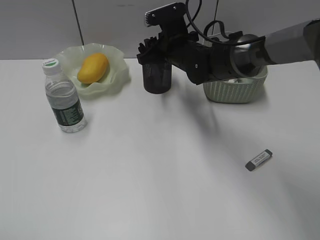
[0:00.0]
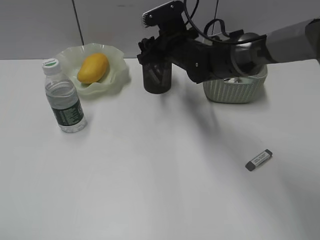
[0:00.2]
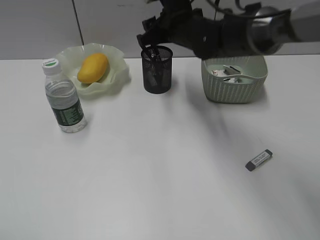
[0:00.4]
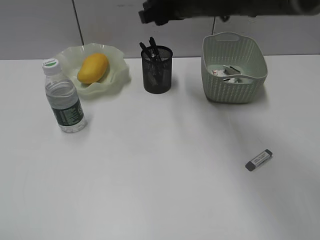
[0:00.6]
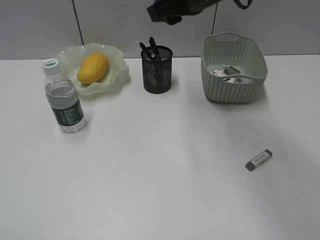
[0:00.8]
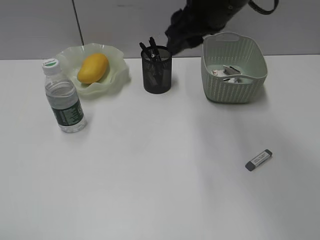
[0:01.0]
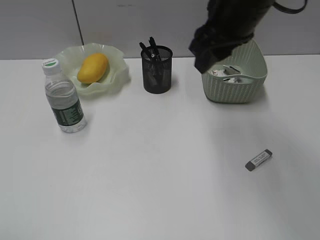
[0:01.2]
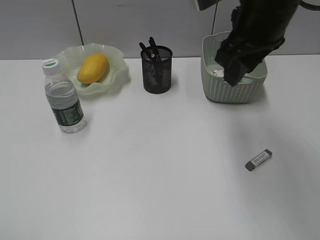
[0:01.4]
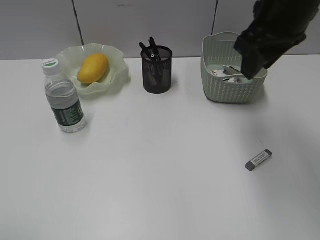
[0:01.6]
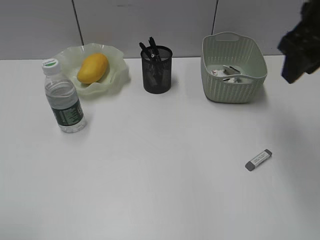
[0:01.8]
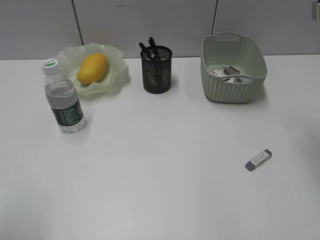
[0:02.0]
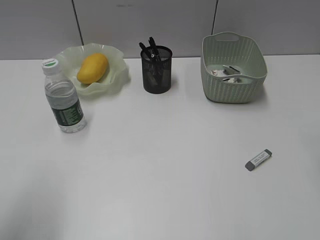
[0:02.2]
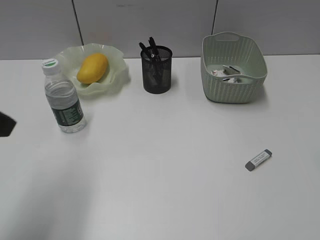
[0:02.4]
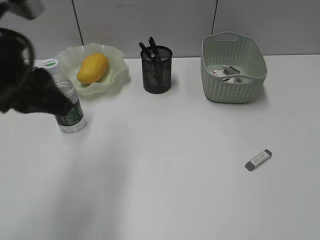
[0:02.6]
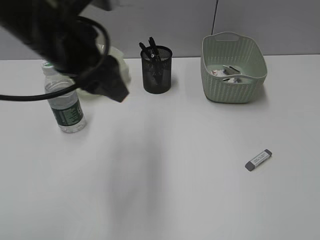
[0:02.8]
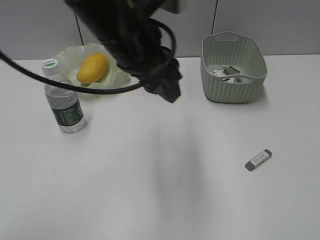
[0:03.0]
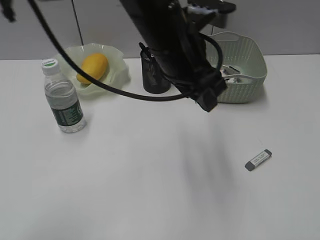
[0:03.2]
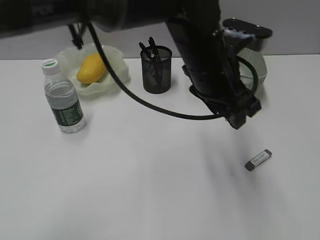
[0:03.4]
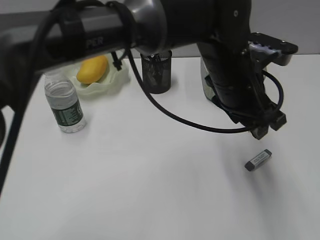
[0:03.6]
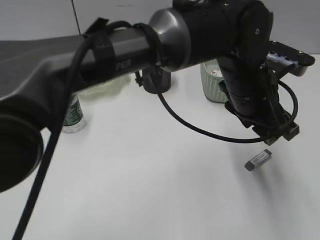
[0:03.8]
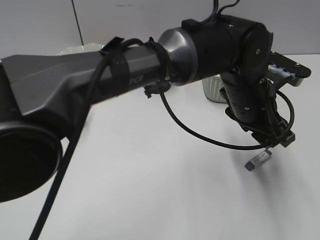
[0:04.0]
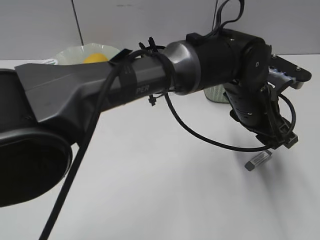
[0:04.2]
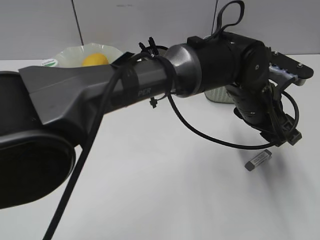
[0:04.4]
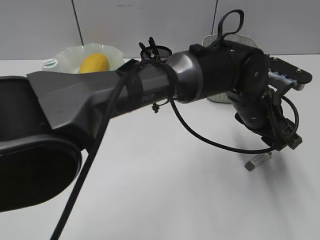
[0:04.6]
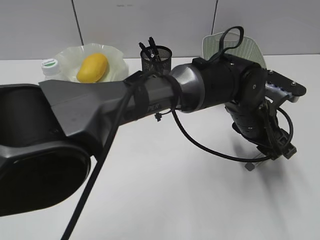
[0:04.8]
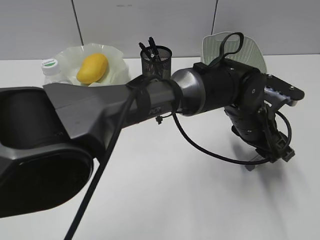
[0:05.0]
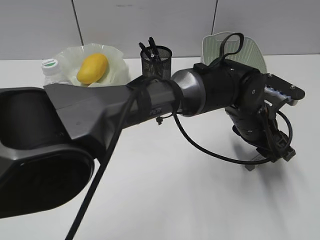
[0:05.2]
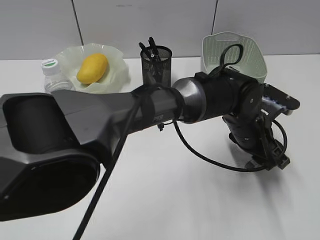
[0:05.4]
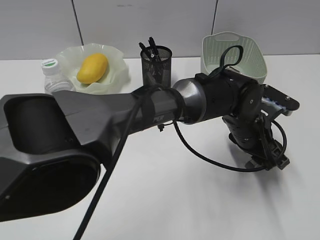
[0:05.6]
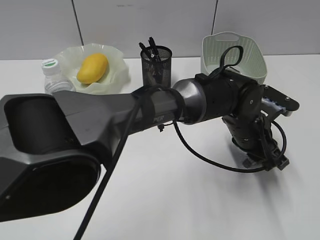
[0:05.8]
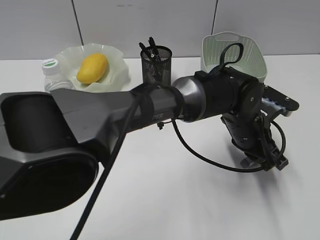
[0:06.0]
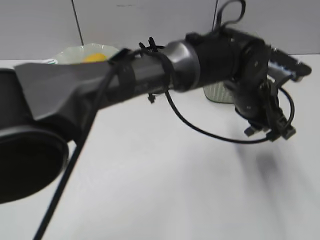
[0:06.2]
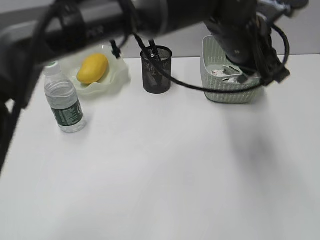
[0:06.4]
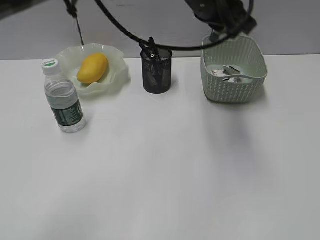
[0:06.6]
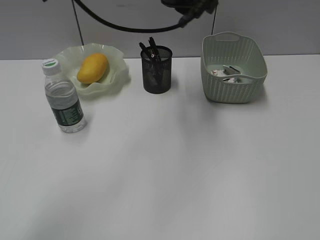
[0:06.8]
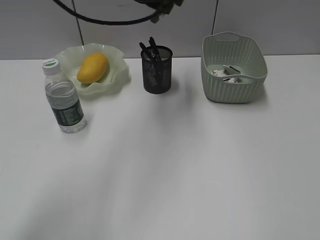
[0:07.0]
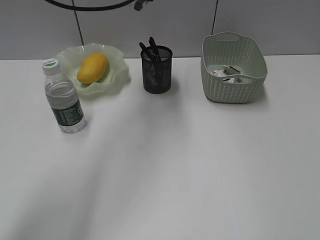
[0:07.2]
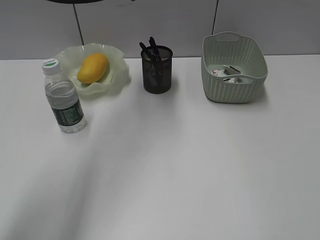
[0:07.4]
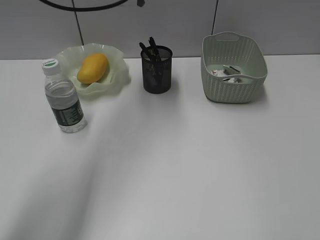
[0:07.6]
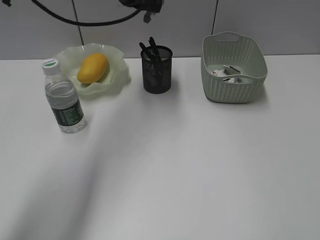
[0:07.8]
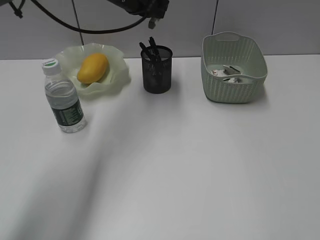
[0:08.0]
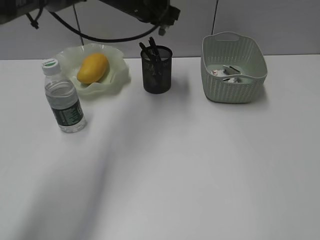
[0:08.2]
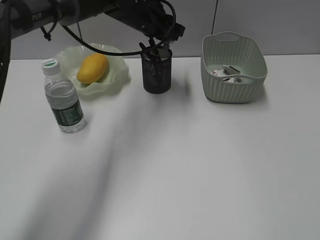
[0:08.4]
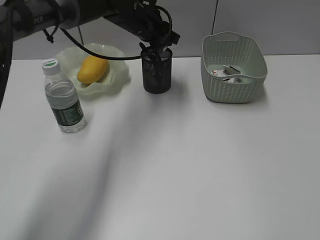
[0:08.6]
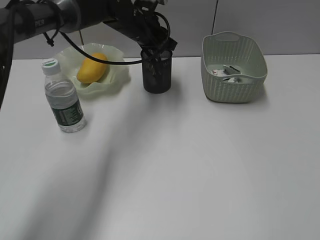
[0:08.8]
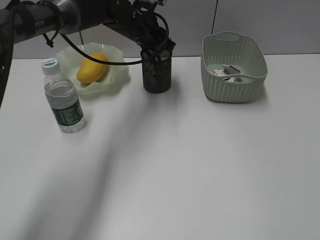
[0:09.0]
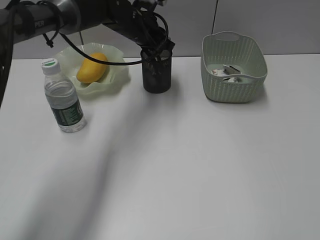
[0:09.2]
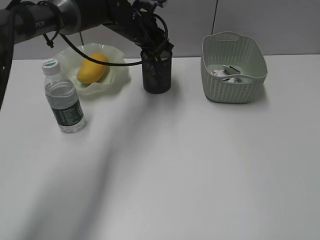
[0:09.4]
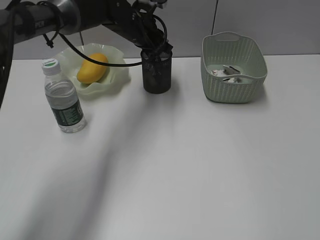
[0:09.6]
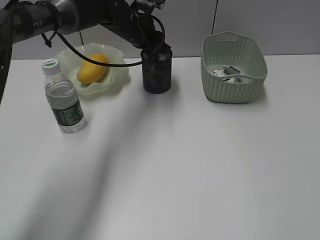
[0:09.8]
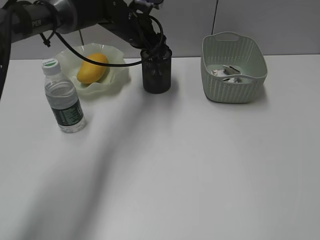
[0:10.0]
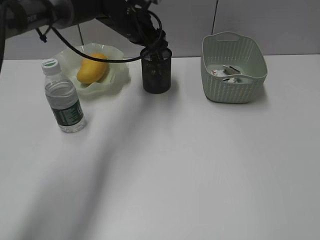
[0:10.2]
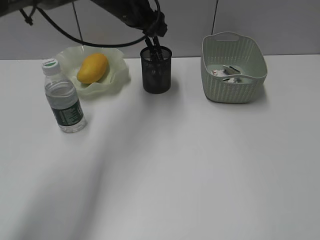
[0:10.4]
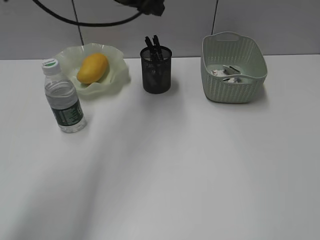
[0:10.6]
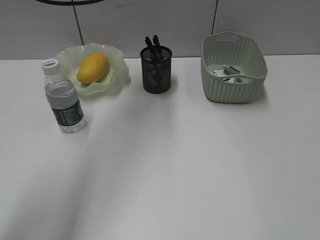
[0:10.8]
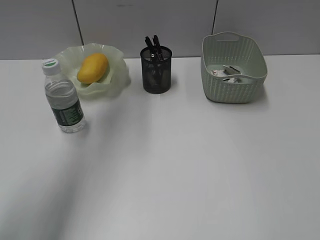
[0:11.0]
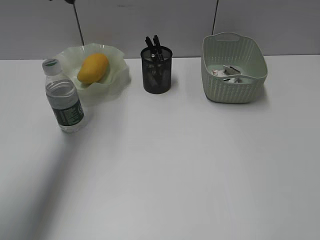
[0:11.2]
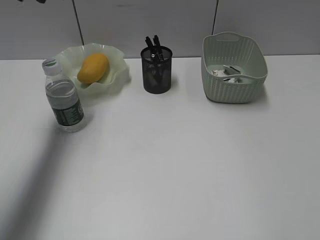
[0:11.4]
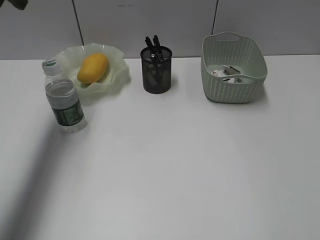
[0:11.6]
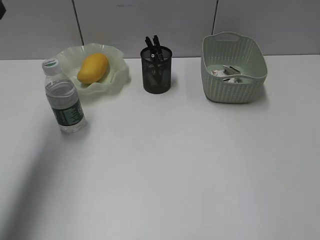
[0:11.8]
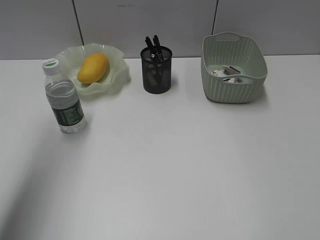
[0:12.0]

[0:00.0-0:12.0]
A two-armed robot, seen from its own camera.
Step, 0:00.6 to 0:05.8: Grasp the eraser with left gripper.
Step, 0:06.0 to 0:10.2: Place the eraser in pen holder with left gripper.
0:00.0 to 0:01.6: The right gripper travels upward, backward and to the right by roughly 25 cm.
0:01.6 to 0:03.0: The right gripper heads backward and to the right, covering approximately 30 cm. Meanwhile the left gripper goes roughly 35 cm forward and to the right.
0:03.0 to 0:04.4: The left gripper is displaced to the right and downward by about 25 cm. Meanwhile the right gripper goes approximately 5 cm backward.
0:04.4 to 0:06.0: The left gripper shifts approximately 5 cm downward, and closes.
0:06.0 to 0:07.6: The left gripper is displaced to the left, upward and forward by some 35 cm.
0:07.6 to 0:09.0: The left gripper travels downward by some 15 cm.
0:09.0 to 0:10.4: The left gripper opens up.
0:10.4 to 0:12.0: The left gripper goes roughly 35 cm to the left, backward and upward.

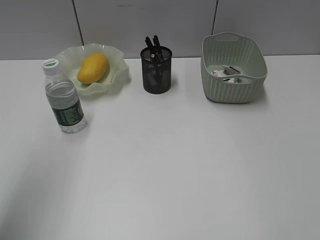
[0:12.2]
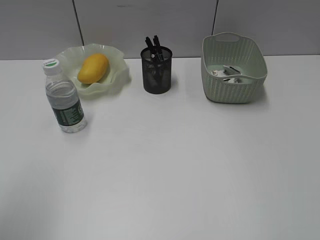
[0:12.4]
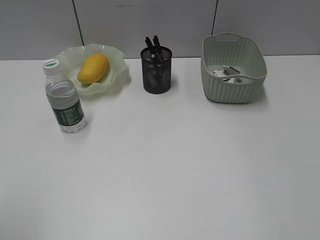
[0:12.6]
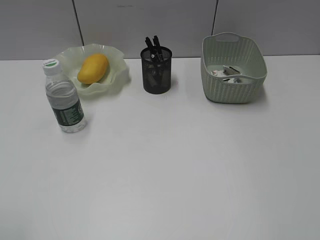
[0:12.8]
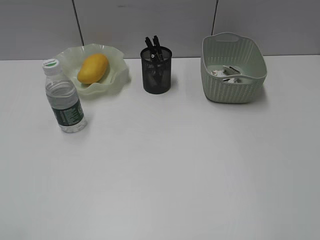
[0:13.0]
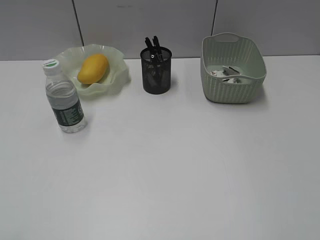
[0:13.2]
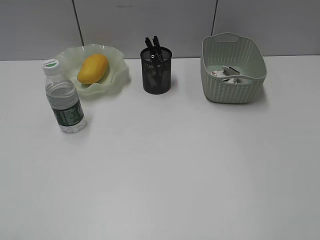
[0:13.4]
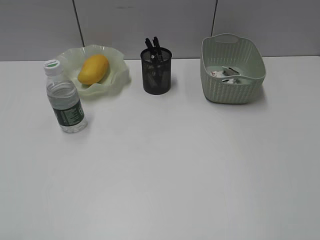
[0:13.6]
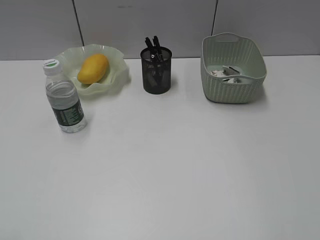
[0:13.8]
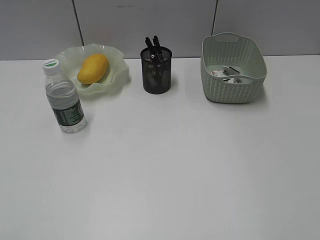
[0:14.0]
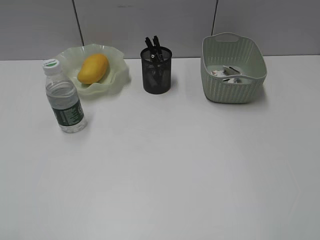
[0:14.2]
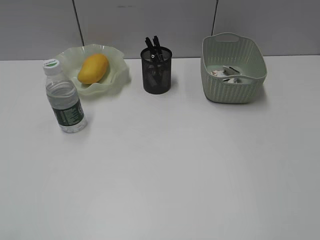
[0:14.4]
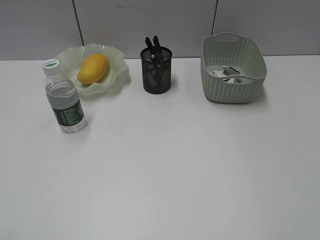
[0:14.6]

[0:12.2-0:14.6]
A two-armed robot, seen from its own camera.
0:12.2 to 0:13.4: The left gripper heads backward and downward, covering roughly 25 cm.
0:13.4 to 0:14.6: Both grippers stay about where they are.
